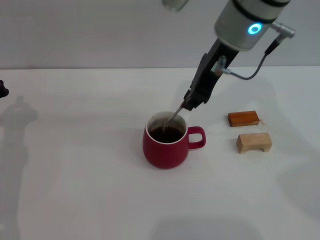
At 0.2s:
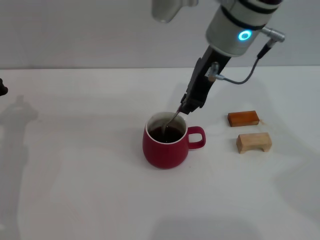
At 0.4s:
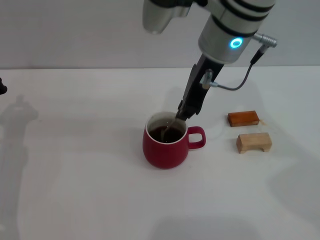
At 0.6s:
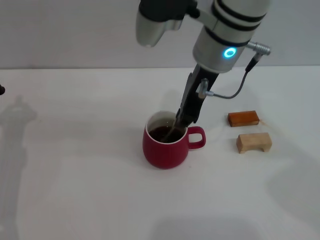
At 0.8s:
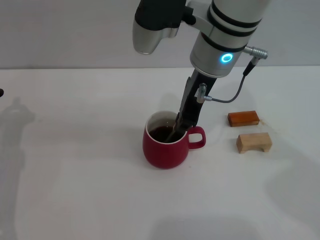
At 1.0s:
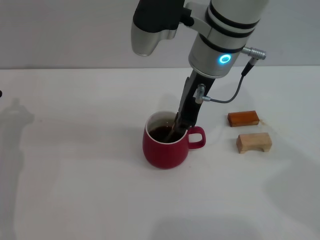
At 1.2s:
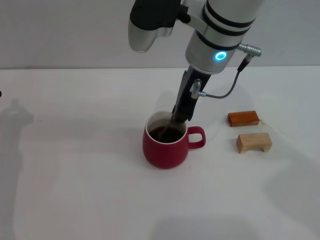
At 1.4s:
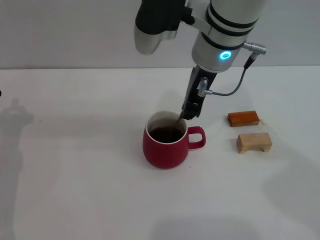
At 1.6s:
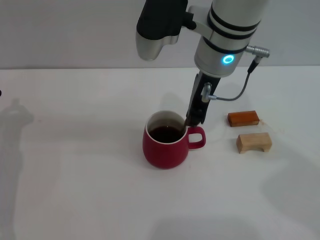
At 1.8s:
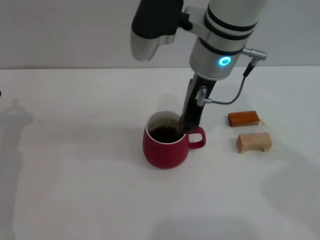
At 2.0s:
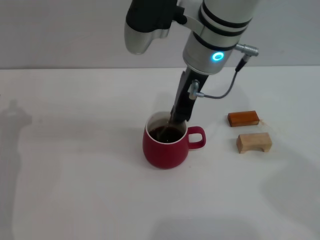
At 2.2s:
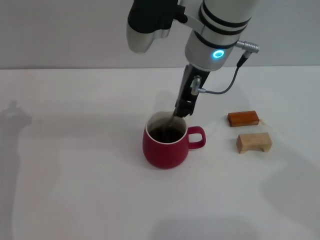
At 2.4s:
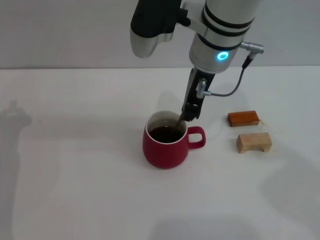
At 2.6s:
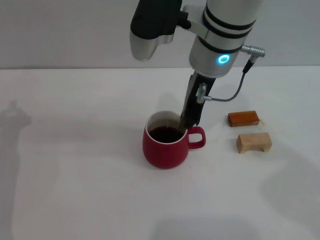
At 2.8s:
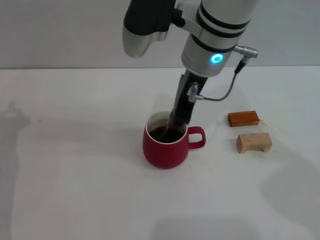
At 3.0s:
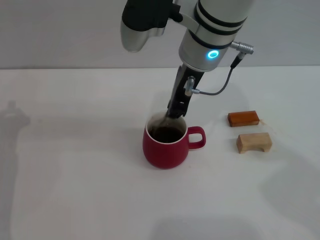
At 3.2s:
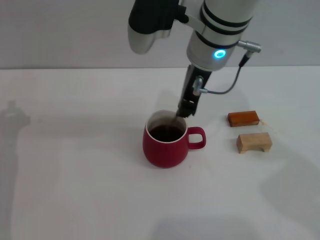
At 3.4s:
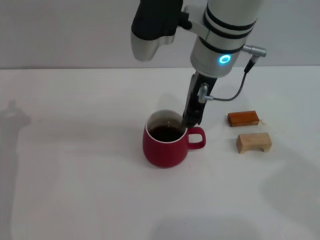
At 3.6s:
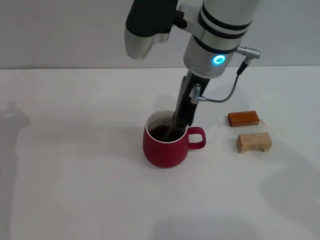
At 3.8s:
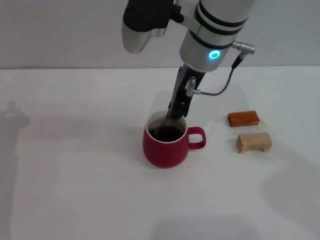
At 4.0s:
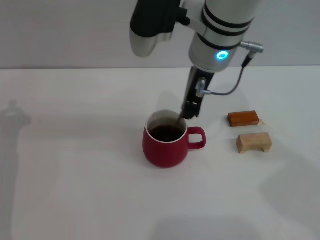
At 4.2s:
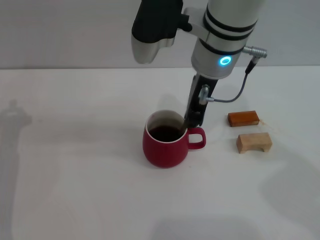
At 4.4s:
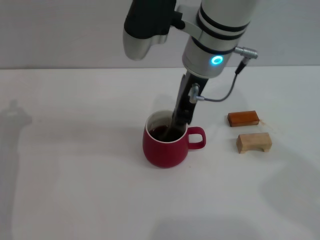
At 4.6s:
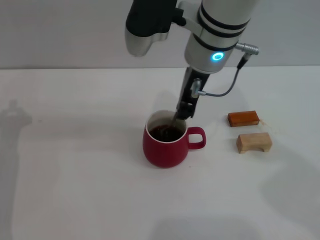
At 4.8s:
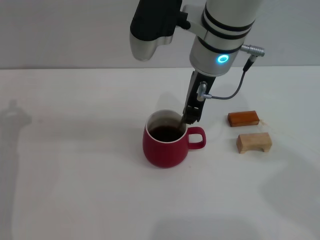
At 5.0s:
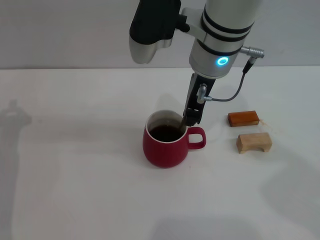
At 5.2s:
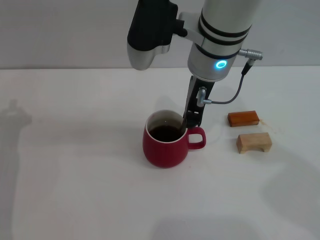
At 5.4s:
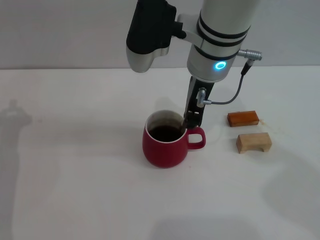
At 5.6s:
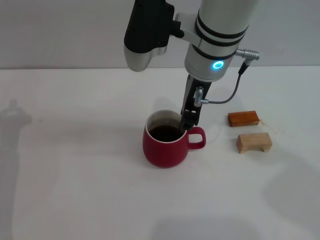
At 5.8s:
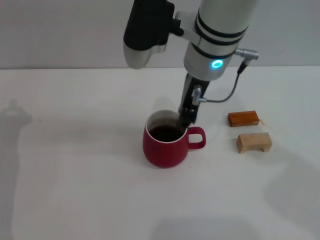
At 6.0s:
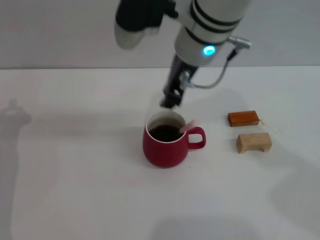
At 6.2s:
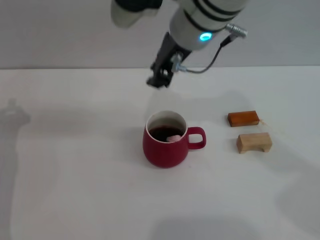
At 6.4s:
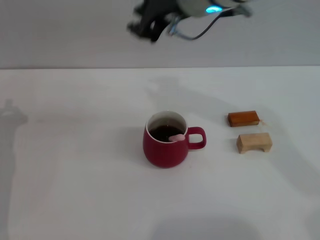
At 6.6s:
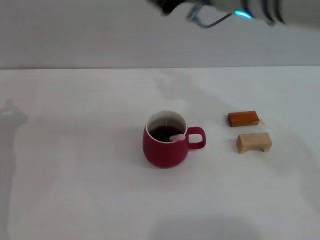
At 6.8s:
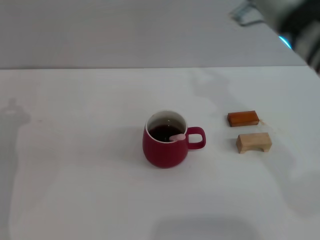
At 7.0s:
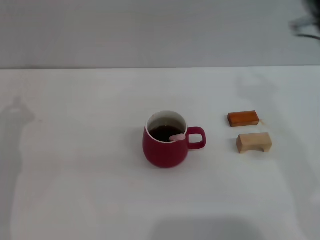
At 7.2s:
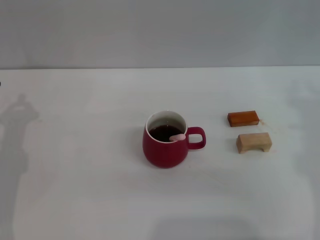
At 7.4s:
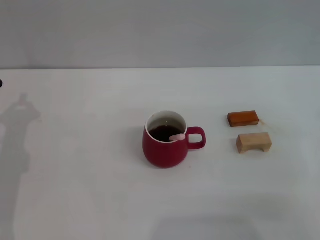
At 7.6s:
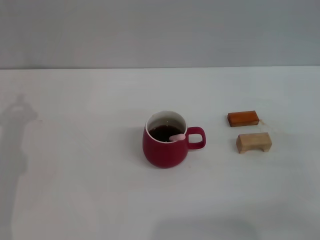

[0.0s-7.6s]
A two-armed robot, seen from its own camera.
Task of the whole recording: Move the red cup to the center, lift the pink spoon, stir it three times in the cup, and put the spoon into the cup.
Step, 0.0s to 6.0s: Stir the coffee in the cup with the right gripper.
0.0s to 6.0s: The grippers stay close to where they were, moving slightly.
6.0s to 7.6s: The right gripper heads to the right, downward and backward, covering some 35 cm.

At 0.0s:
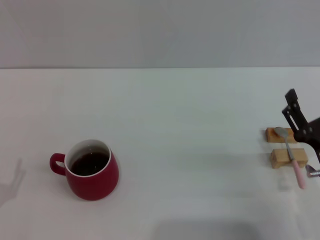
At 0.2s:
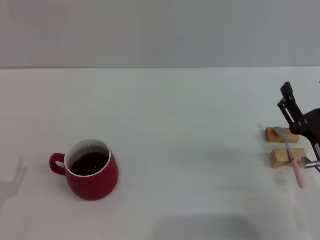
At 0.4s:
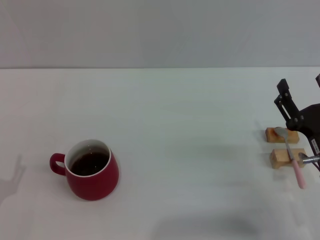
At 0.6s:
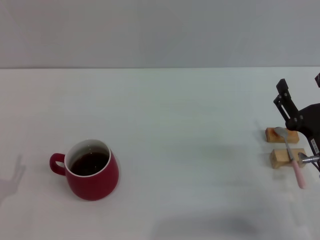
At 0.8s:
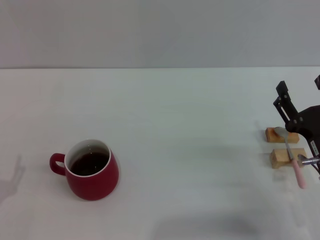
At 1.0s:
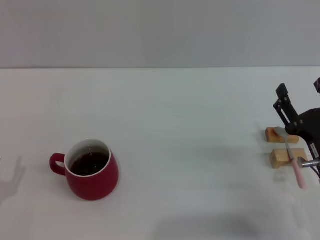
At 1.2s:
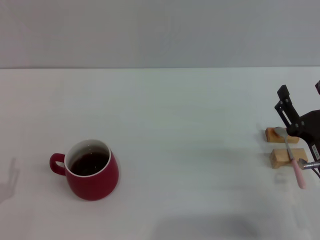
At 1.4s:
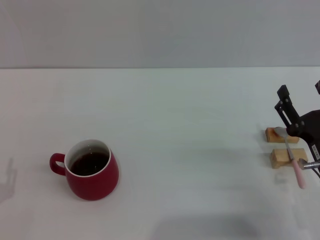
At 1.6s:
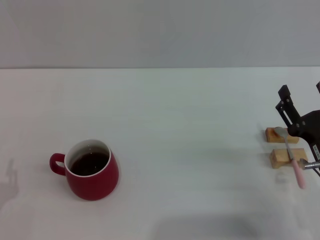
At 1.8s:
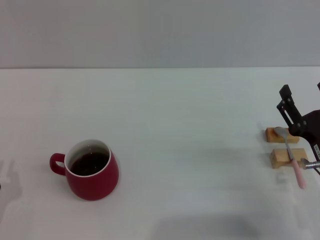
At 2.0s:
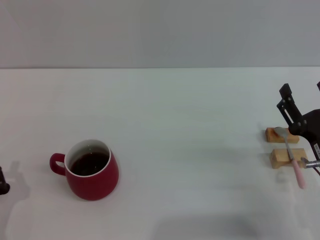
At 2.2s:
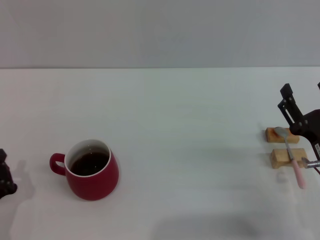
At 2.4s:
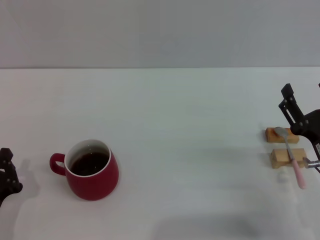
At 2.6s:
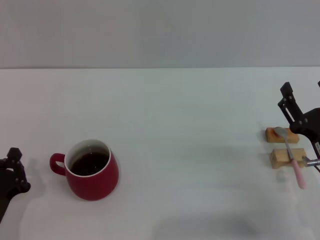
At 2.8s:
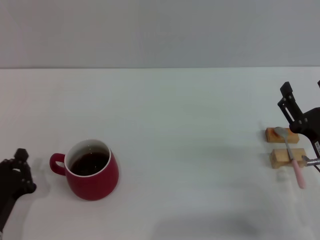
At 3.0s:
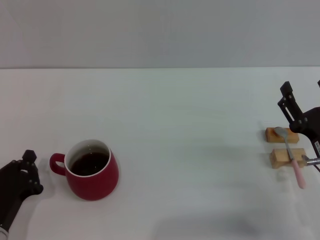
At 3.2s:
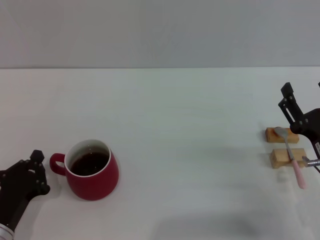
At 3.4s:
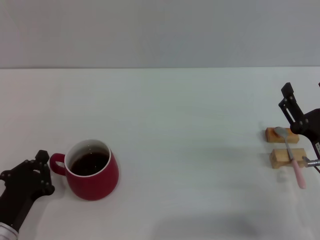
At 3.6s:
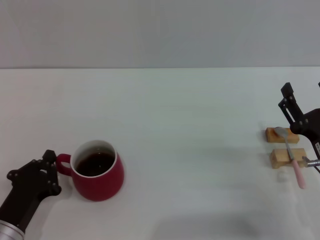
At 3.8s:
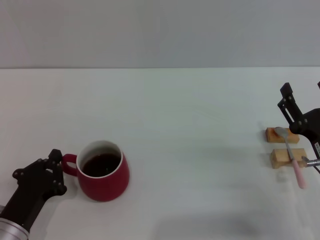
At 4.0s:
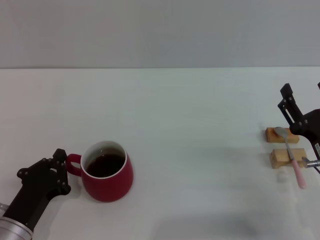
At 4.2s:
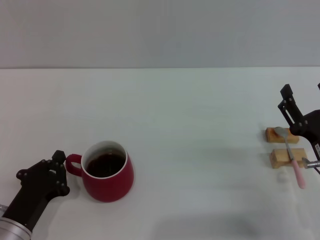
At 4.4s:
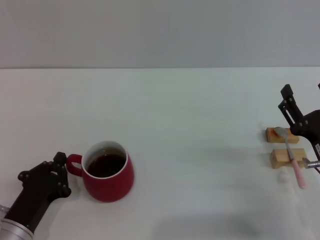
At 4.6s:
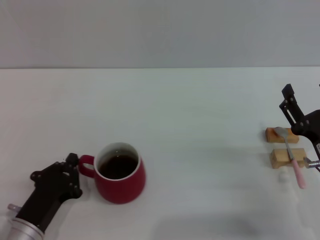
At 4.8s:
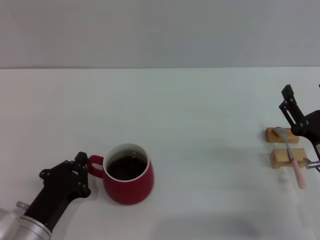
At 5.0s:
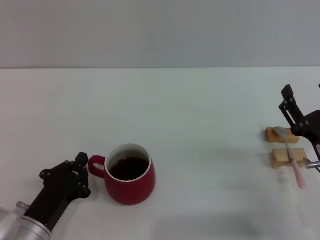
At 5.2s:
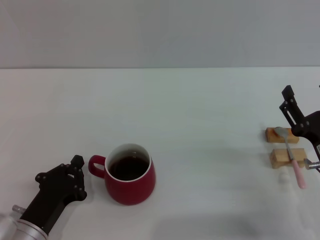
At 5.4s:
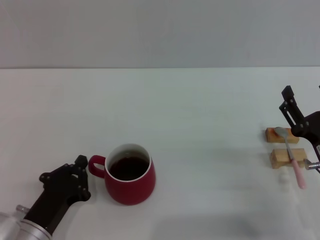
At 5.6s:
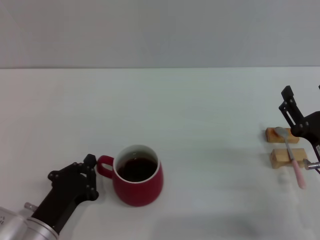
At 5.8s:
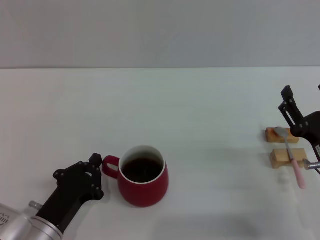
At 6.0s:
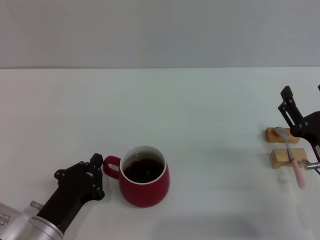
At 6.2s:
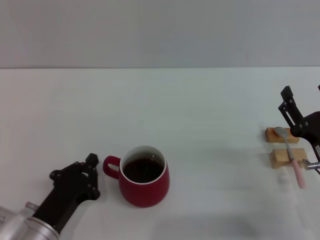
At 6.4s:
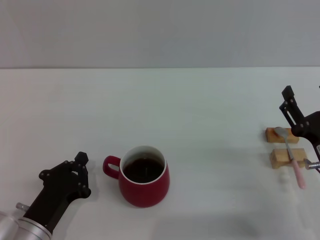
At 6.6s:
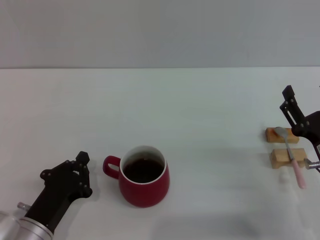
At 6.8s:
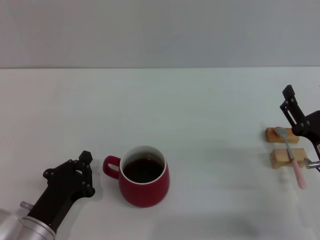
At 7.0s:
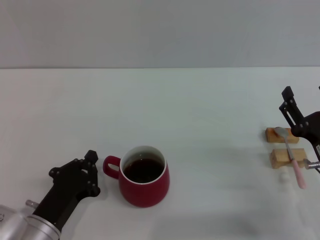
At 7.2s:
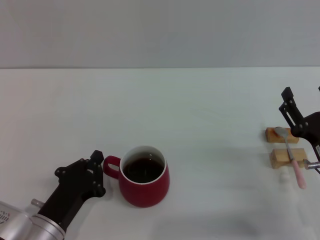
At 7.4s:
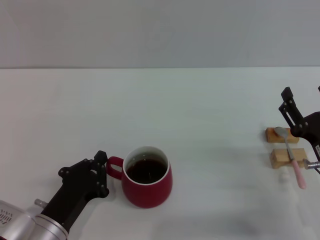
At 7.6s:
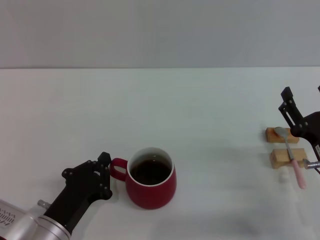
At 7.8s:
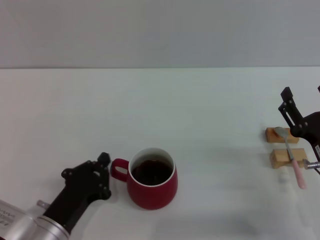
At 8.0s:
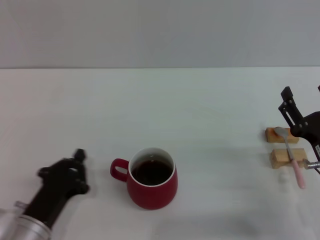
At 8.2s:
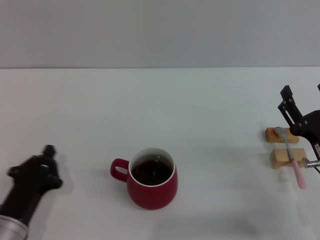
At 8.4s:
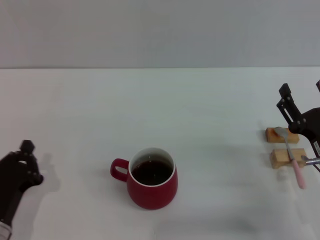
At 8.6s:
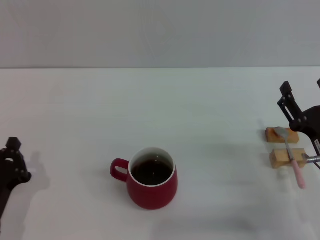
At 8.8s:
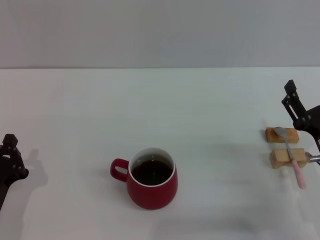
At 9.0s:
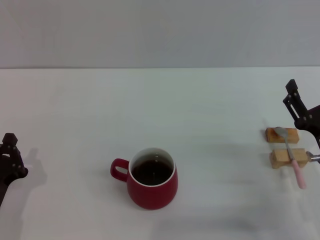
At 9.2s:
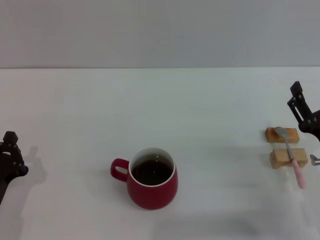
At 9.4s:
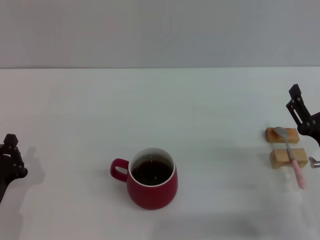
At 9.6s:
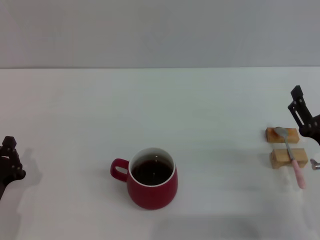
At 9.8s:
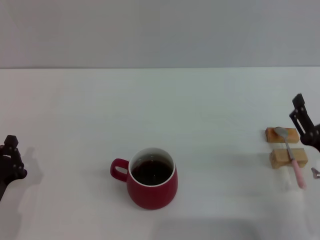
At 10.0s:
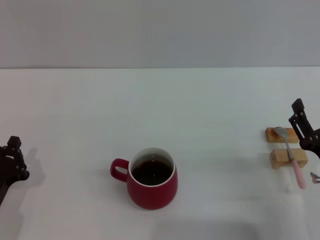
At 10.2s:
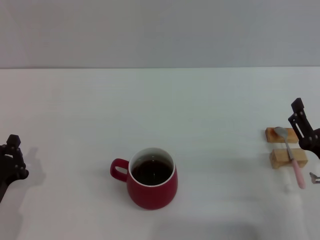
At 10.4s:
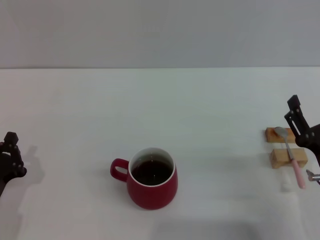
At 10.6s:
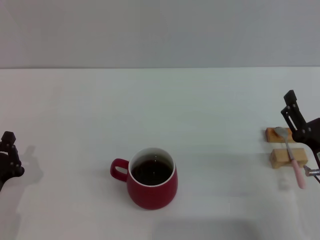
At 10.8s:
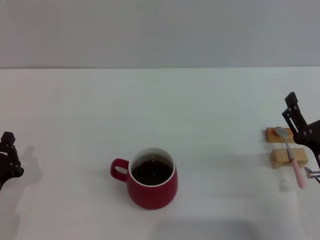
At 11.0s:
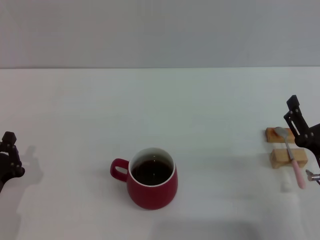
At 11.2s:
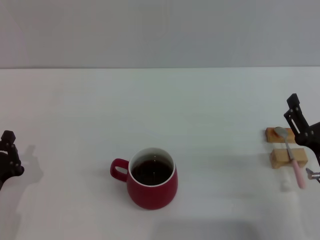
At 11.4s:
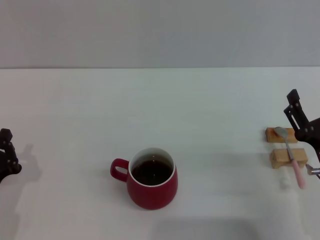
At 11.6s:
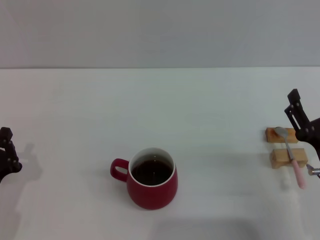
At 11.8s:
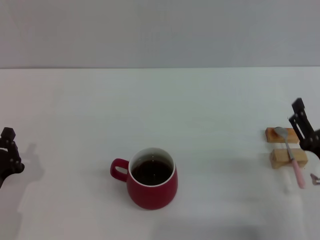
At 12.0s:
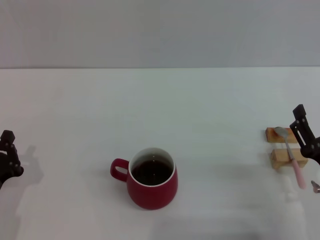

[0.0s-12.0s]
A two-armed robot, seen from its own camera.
Task of the whole recording: Move the red cup to the center, lift the pink spoon, stir it three times in the cup, and put the spoon into the cup.
Step, 0.0s to 8.4s: Move the cup with coffee to the center of view with the left gripper.
1.6s to 3.0s: The left gripper closes.
3.0s to 4.4s: The grippers make only small movements.
4.4s to 6.0s: The grippers make only small movements.
6.0s to 7.6s: Neither gripper changes place.
7.6s to 9.0s: The left gripper heads to the left, covering roughly 10 cm.
9.0s to 12.0s: The grippers stay close to where they were, moving slightly.

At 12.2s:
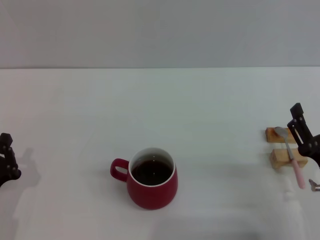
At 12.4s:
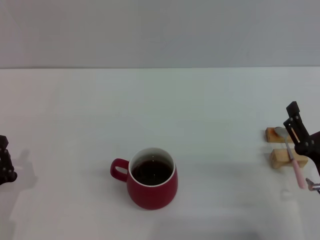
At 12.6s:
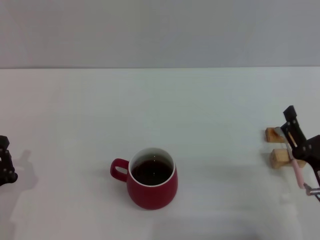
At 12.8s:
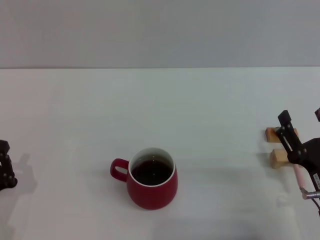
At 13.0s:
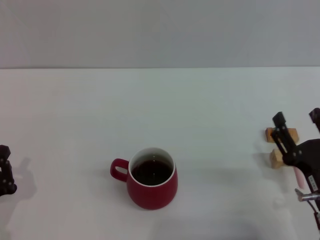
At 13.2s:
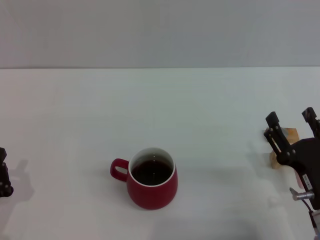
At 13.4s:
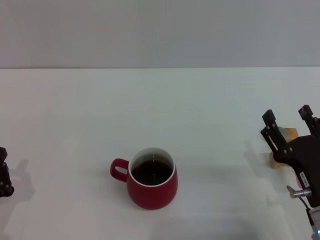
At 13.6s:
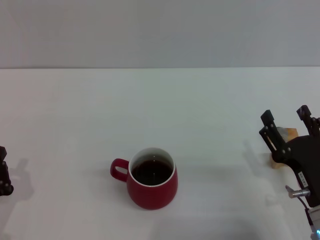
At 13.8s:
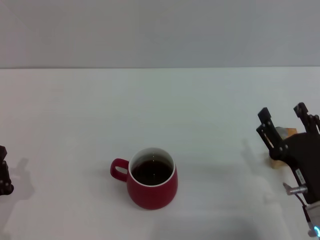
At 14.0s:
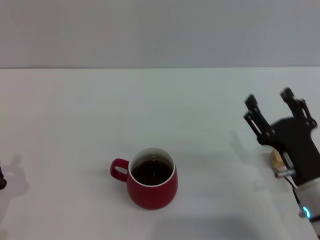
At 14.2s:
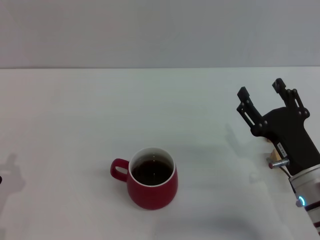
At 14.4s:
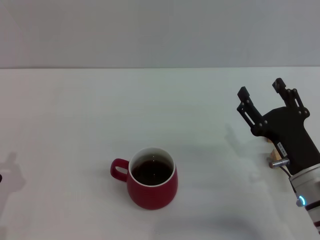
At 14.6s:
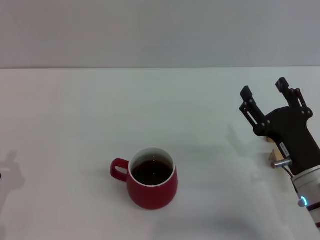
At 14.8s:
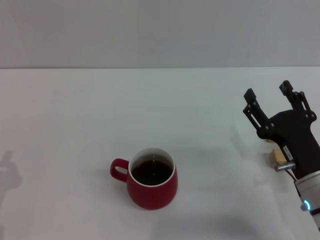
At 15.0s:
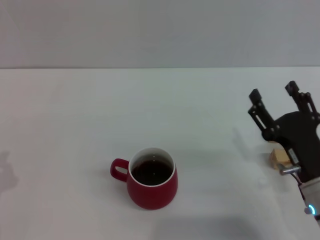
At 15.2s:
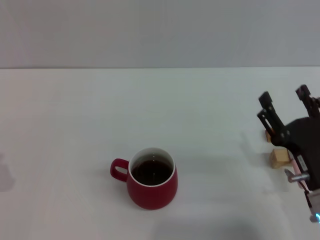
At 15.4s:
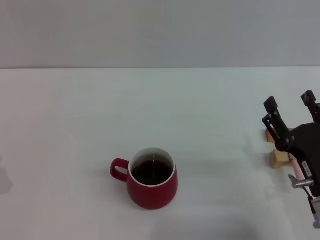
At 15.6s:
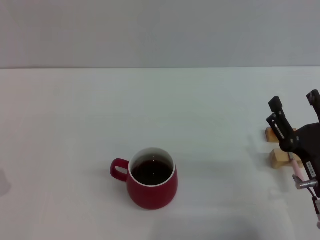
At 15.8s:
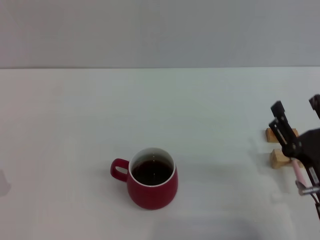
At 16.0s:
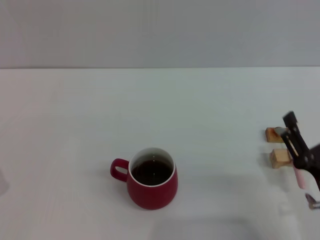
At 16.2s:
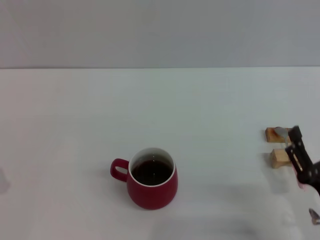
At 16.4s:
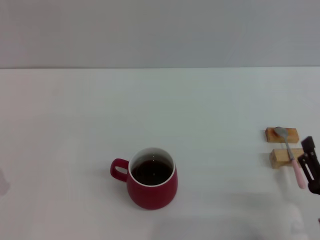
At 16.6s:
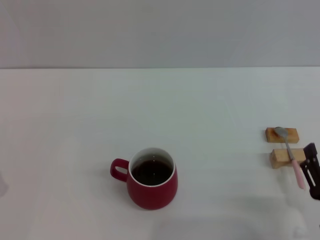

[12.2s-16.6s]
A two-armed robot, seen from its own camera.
Task of the whole recording: Move the red cup to the center, lift the pink spoon, stir it three times in the cup, and put the spoon into the cup.
12.2s to 15.2s: The grippers stay close to where they were, moving slightly.
15.2s to 16.6s: The right gripper travels backward by about 10 cm.
